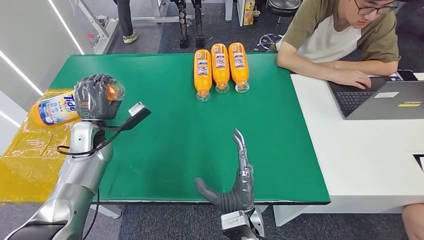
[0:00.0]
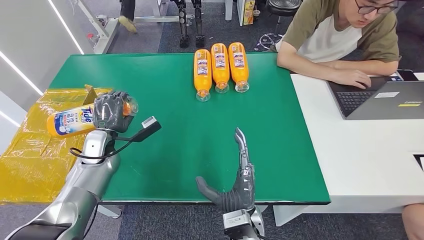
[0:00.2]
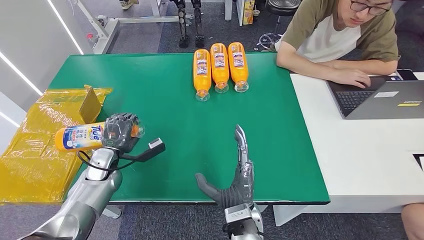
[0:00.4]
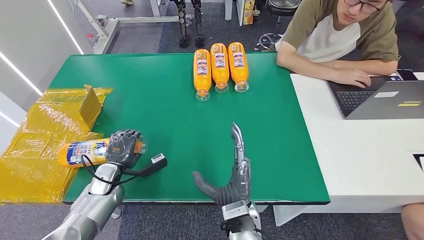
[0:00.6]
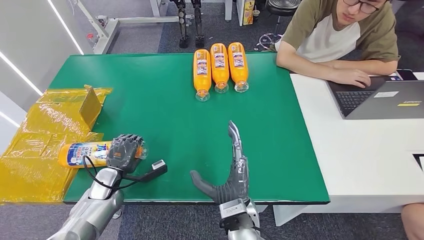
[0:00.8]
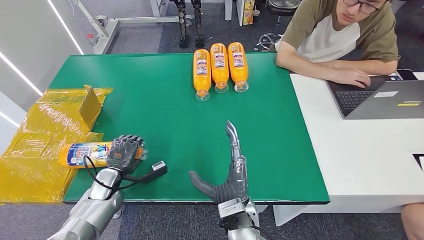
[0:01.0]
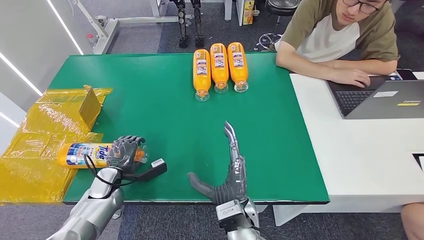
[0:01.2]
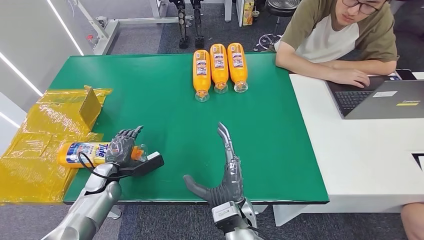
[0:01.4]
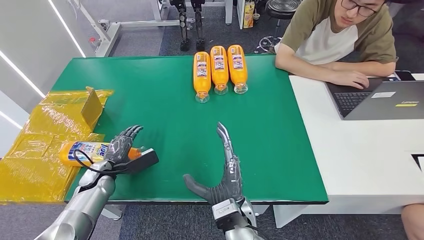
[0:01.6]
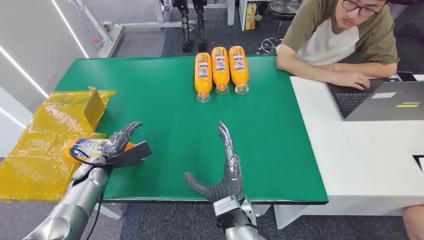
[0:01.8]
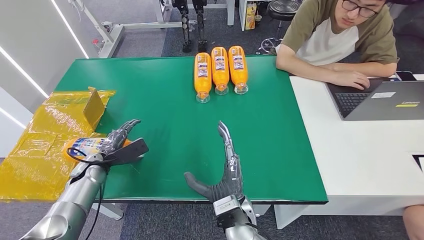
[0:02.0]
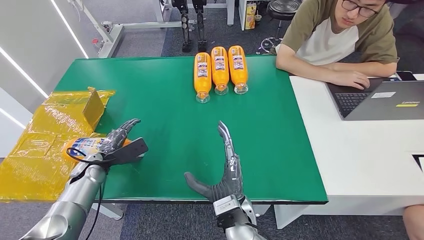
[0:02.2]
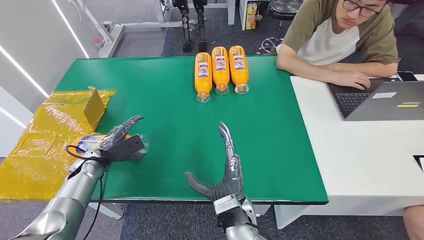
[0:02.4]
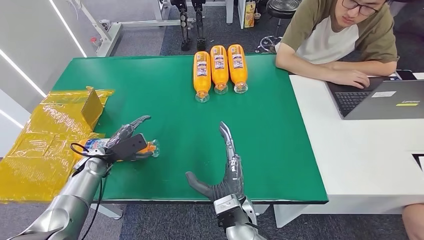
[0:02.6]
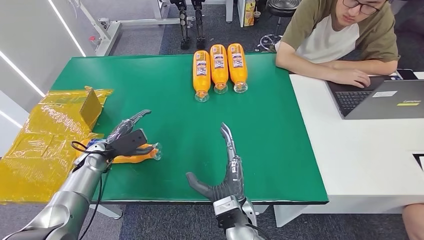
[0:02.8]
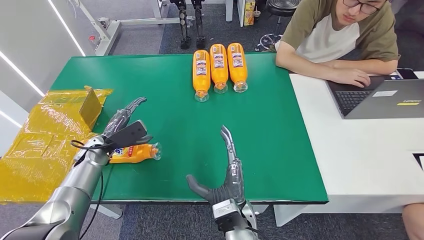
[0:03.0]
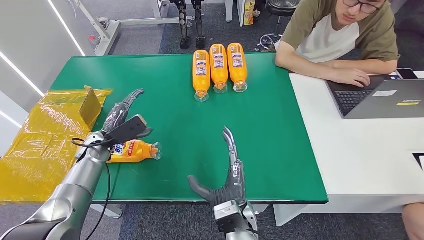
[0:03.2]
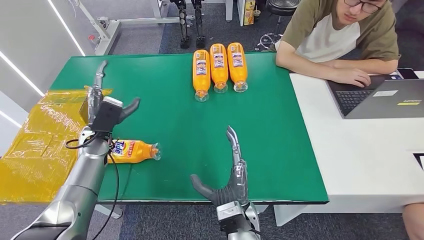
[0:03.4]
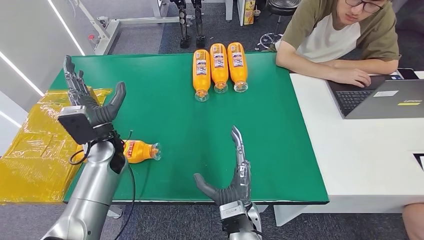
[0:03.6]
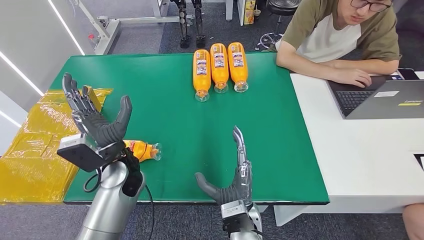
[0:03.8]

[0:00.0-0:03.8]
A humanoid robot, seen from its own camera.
Step, 0:00.0 to 0:03.8: Turn the bottle to the front side.
0:00.0 to 0:01.2: The left hand moves downward and backward, roughly 15 cm.
0:01.2 to 0:02.6: The left hand is displaced forward by approximately 5 cm.
0:02.6 to 0:03.8: The left hand goes about 20 cm to the right and upward.
